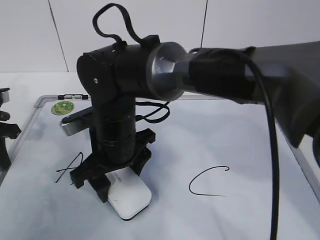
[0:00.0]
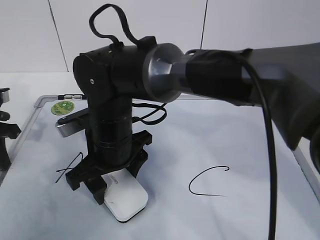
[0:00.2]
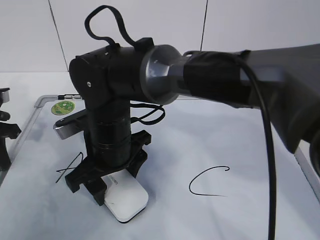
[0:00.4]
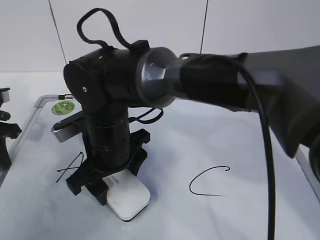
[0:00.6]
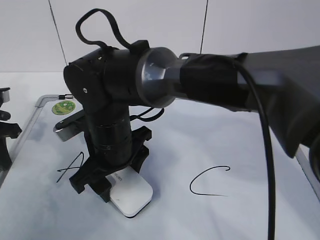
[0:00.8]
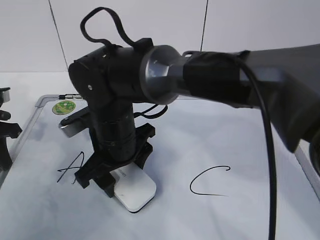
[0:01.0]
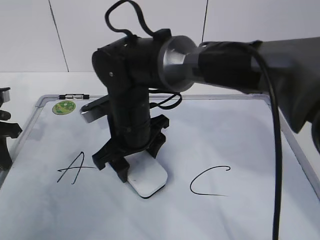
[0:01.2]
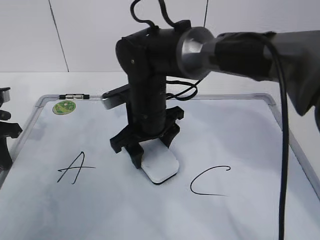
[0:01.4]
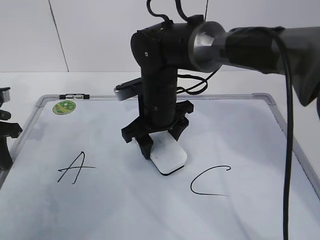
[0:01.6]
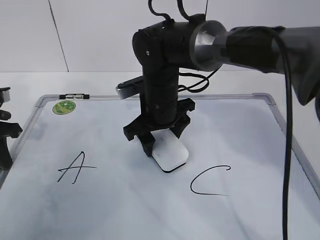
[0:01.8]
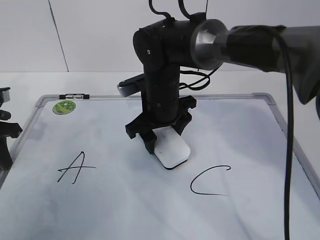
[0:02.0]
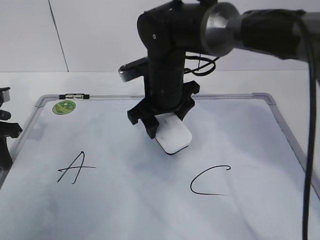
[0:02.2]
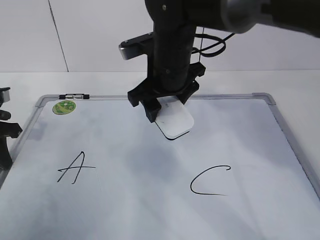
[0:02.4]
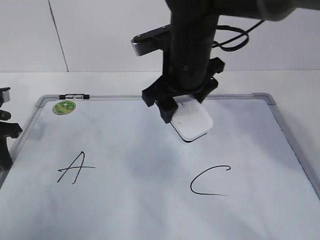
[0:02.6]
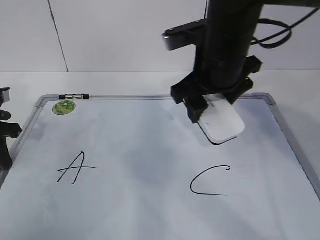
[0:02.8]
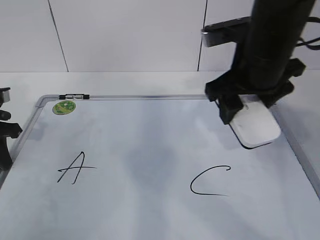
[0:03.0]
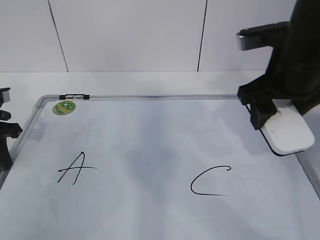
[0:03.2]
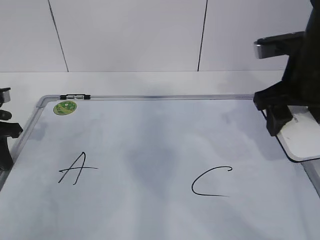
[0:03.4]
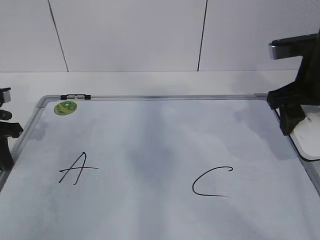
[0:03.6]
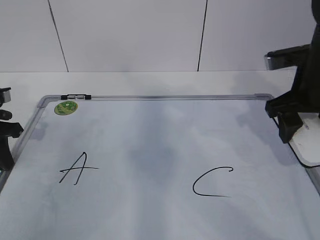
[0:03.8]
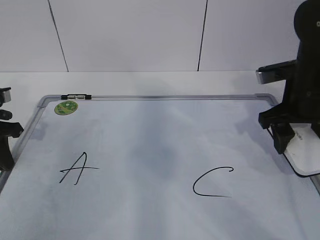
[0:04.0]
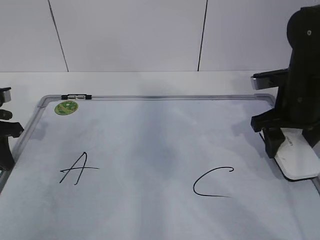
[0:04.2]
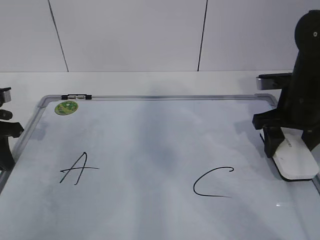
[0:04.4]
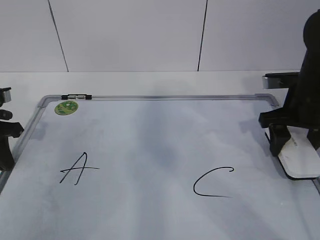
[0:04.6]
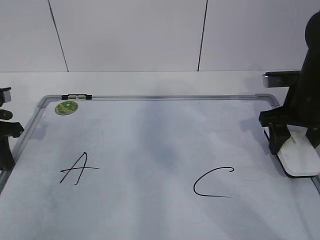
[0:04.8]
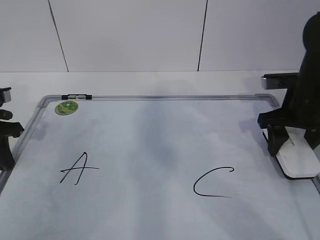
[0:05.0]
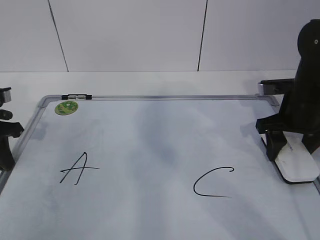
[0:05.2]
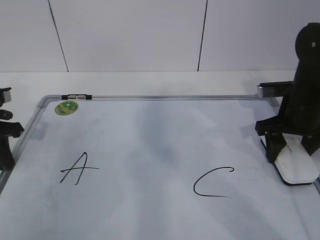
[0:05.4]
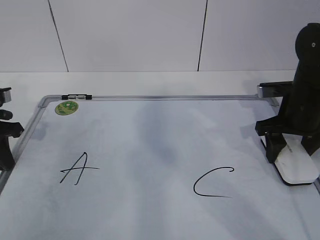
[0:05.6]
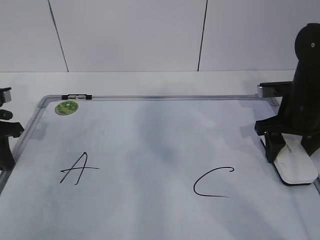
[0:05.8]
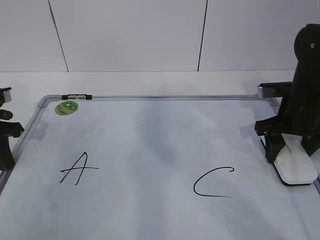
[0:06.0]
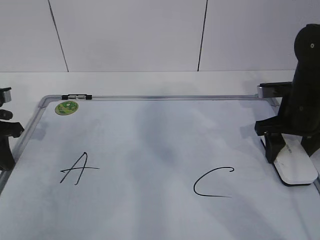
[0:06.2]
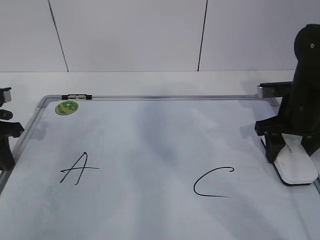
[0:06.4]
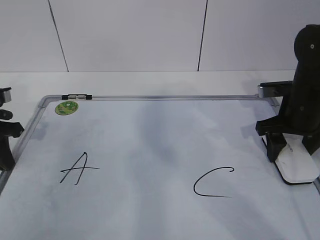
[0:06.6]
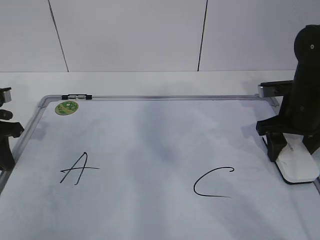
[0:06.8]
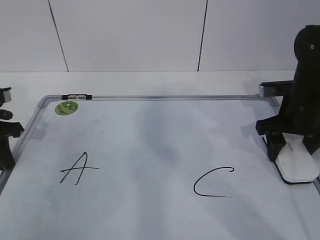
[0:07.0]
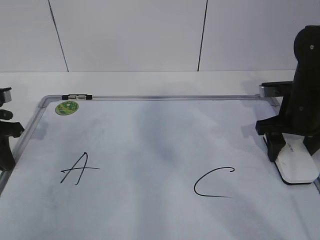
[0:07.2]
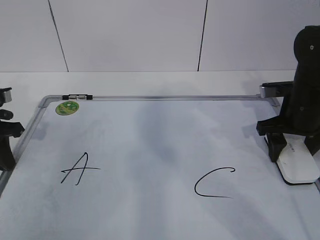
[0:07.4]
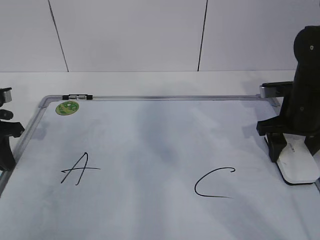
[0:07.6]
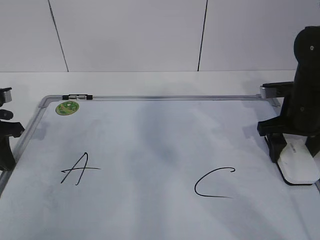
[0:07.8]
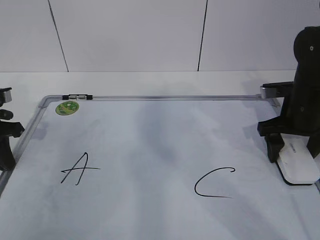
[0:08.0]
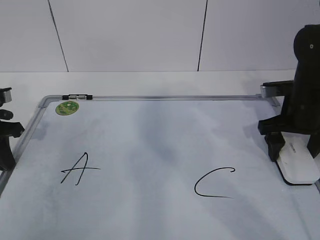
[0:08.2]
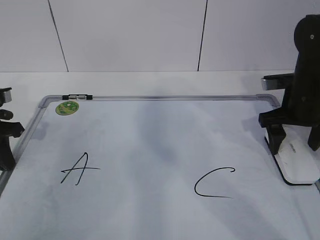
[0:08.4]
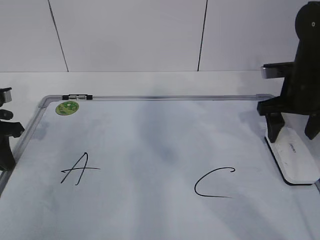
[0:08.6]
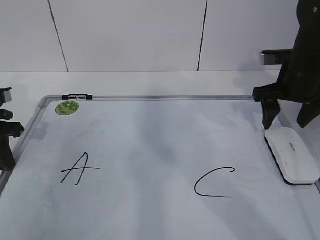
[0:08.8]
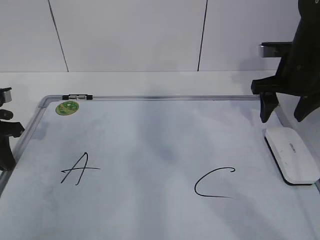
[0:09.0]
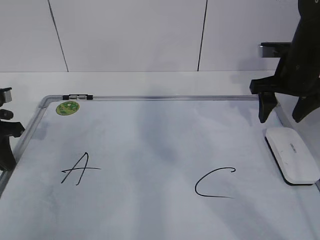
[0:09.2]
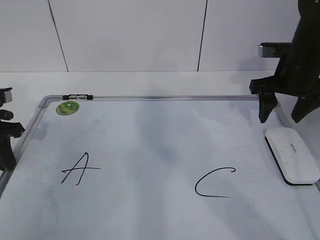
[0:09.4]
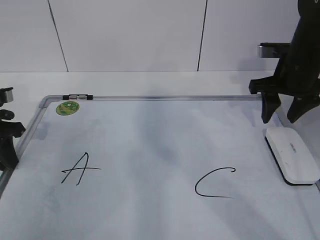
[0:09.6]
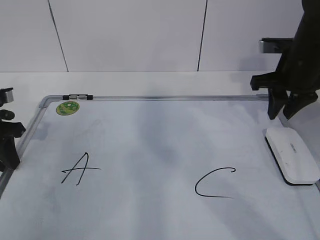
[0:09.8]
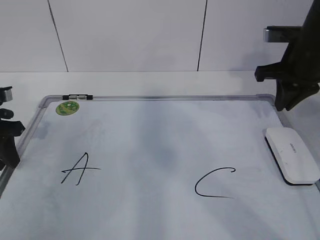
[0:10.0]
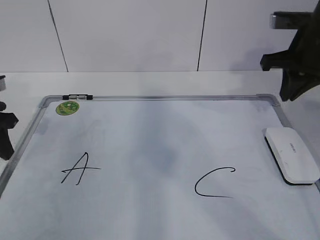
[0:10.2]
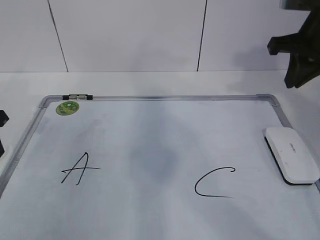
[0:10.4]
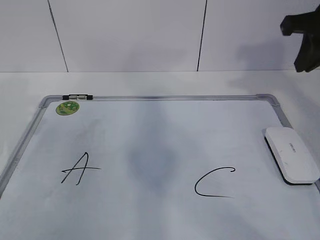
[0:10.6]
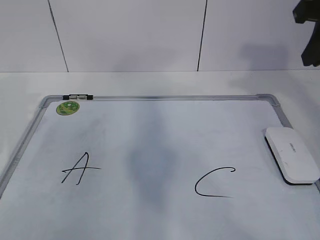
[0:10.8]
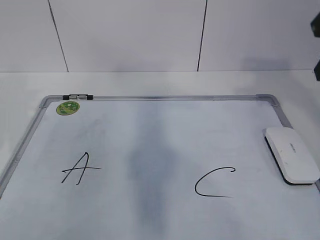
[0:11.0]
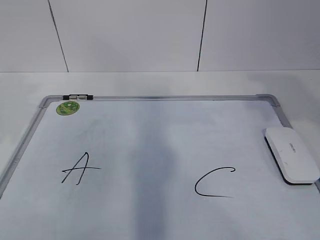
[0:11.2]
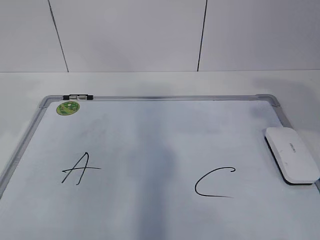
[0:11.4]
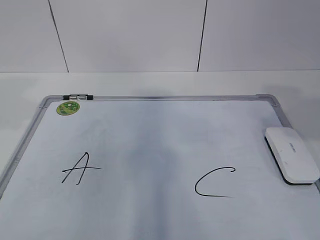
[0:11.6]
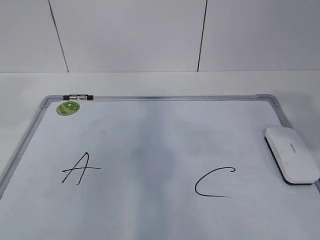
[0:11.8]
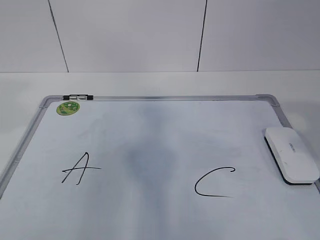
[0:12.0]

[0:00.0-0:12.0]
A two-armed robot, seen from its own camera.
Task of the whole recording: pick up the eraser on the blackboard and erase the letter "B".
Step, 0:00.0 to 0:02.6: Put down the eraser with your right hand.
0:00.0 to 0:01.6: The right gripper moves forward and to the right, some 10 cm.
0:01.6 to 0:03.0: The right gripper is displaced to the right, upward and backward by some 20 cm.
0:03.0 to 0:04.4: The right gripper shifts some 15 cm to the right and downward.
0:04.4 to 0:06.0: The grippers stay close to where they were, moving slightly.
0:06.0 to 0:07.6: The two grippers keep their place.
0:07.6 to 0:09.0: The right gripper moves upward, some 5 cm.
0:09.0 to 0:10.4: The left gripper opens its fingers. The right gripper goes about 10 cm upward, and closes.
0:10.4 to 0:12.0: The left gripper travels upward and backward by approximately 25 cm. The right gripper heads backward, covering some 25 cm, and opens up.

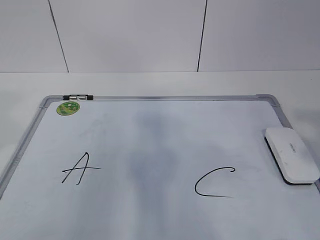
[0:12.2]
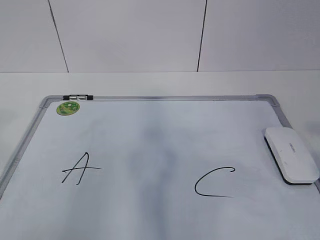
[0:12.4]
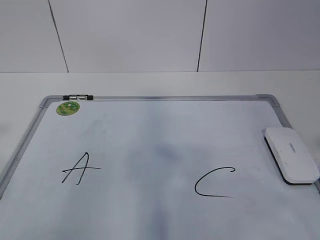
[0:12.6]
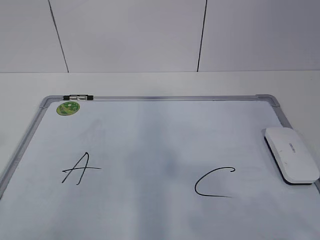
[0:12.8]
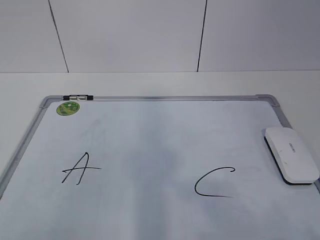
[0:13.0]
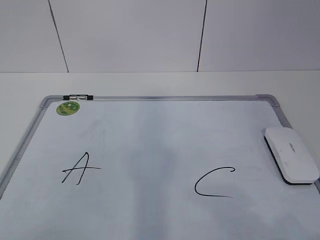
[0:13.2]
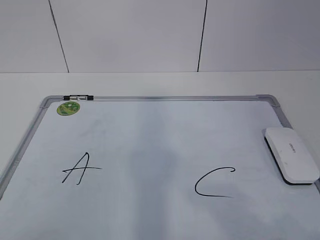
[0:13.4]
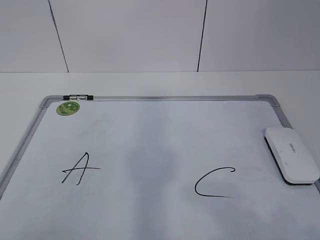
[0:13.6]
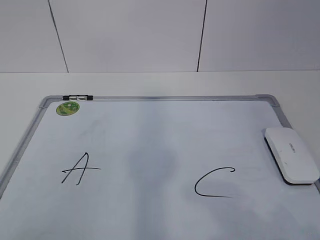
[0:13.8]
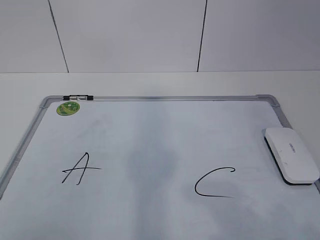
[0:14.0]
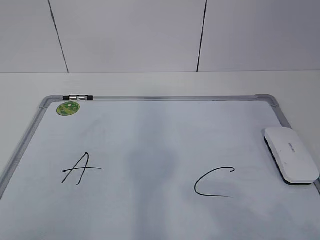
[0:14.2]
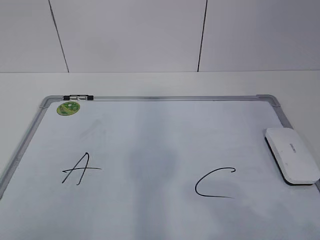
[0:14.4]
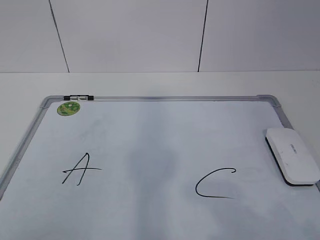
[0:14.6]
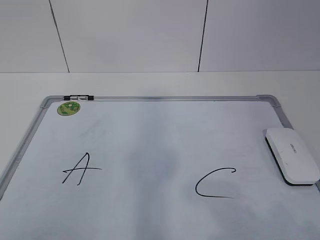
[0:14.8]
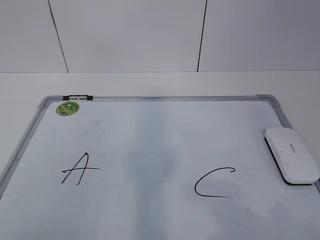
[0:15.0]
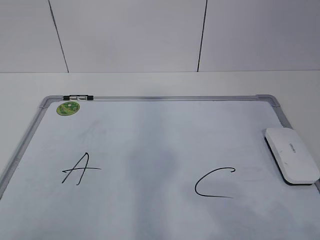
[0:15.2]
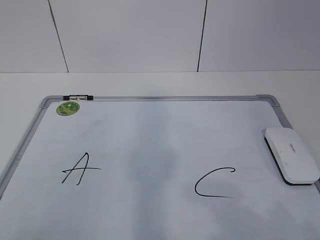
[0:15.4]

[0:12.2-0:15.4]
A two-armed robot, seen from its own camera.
Task of the whole recording: pick up the eraser on the blackboard and erase the letter "B".
0:12.2 to 0:13.8: The right gripper travels downward and backward by about 15 cm.
0:13.8 to 0:15.4: The two grippers keep their place.

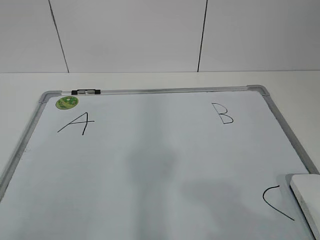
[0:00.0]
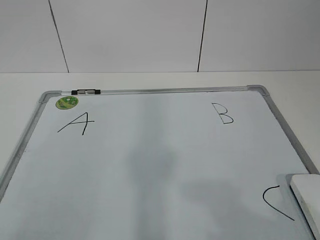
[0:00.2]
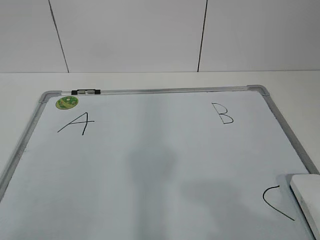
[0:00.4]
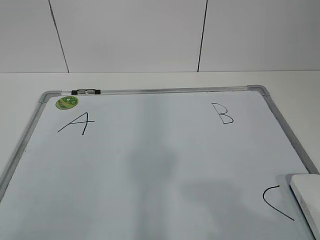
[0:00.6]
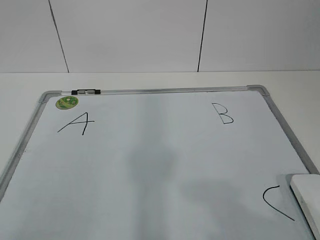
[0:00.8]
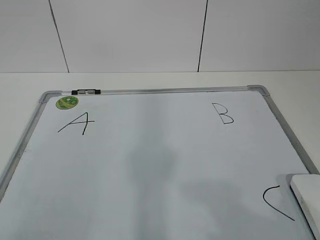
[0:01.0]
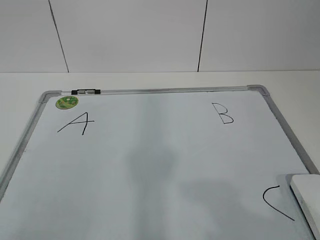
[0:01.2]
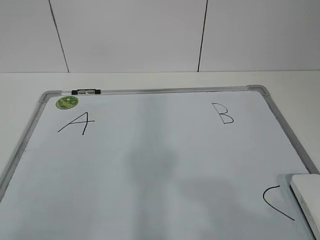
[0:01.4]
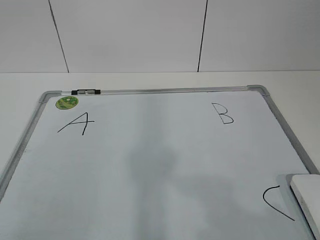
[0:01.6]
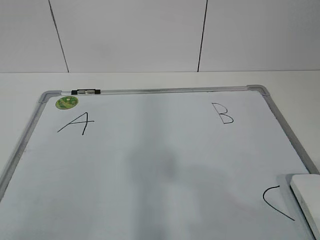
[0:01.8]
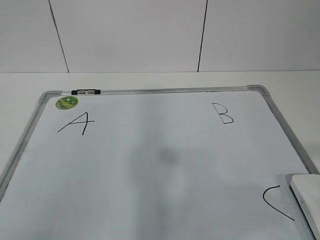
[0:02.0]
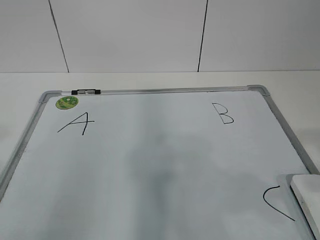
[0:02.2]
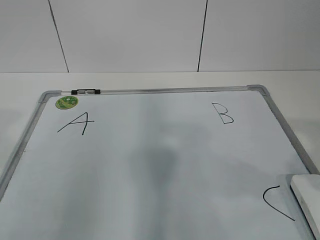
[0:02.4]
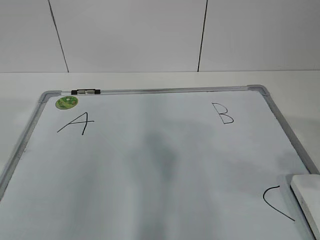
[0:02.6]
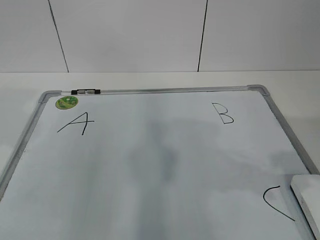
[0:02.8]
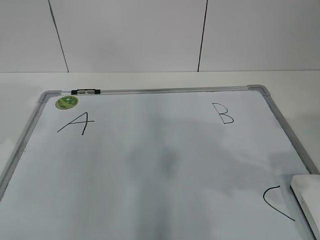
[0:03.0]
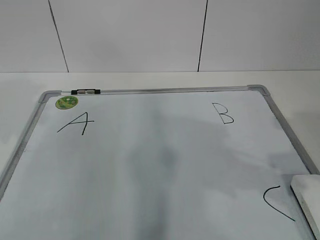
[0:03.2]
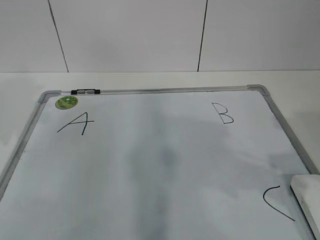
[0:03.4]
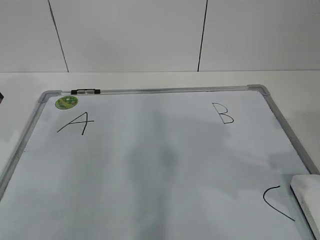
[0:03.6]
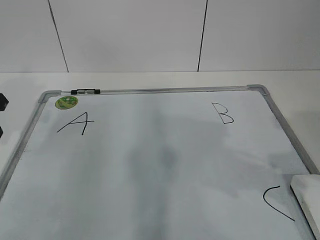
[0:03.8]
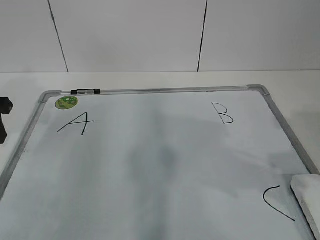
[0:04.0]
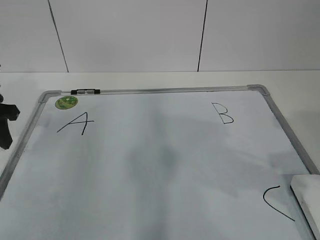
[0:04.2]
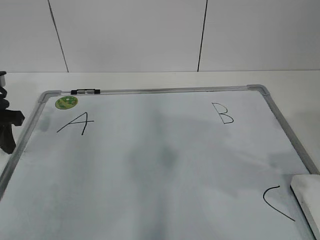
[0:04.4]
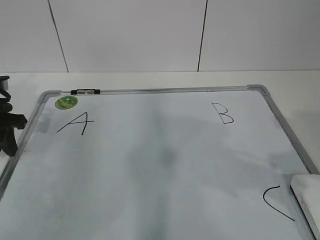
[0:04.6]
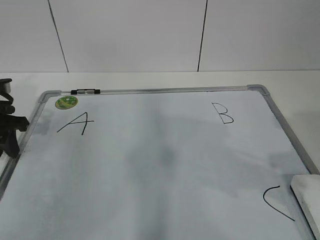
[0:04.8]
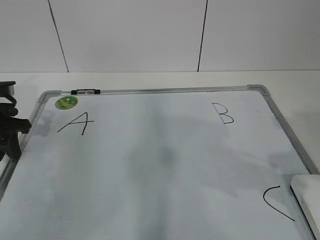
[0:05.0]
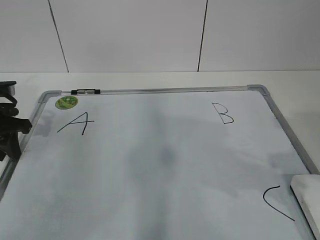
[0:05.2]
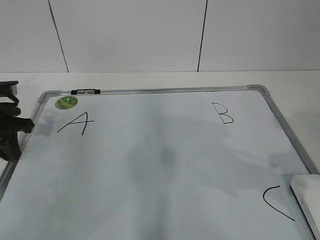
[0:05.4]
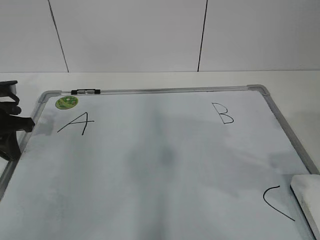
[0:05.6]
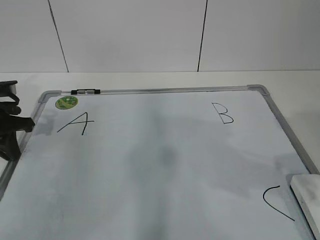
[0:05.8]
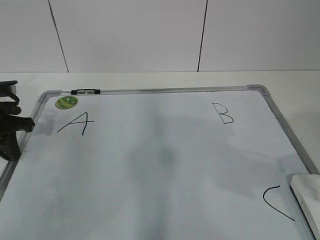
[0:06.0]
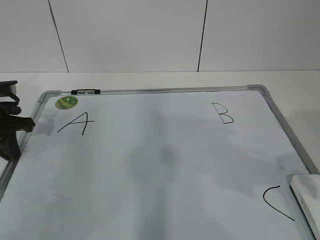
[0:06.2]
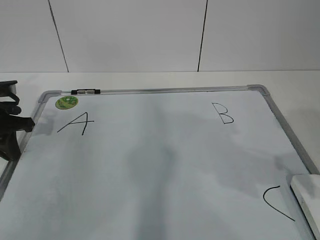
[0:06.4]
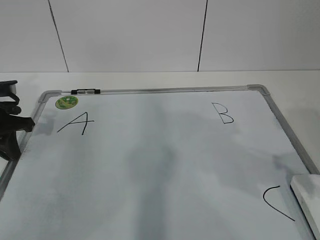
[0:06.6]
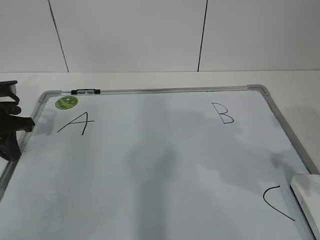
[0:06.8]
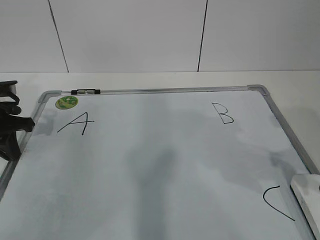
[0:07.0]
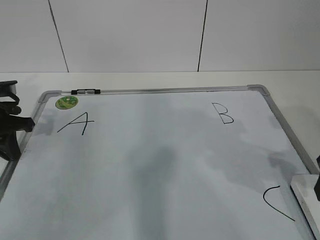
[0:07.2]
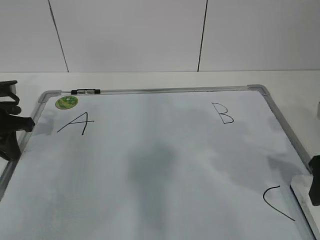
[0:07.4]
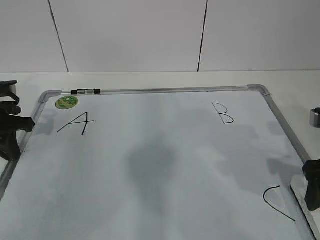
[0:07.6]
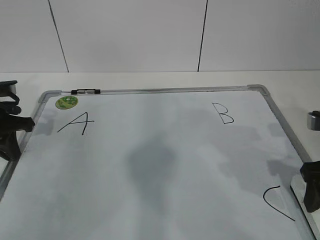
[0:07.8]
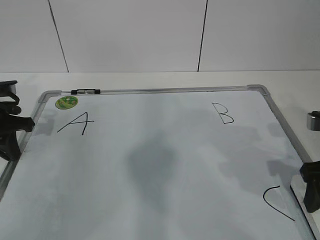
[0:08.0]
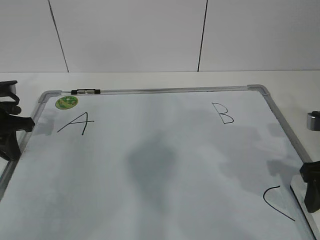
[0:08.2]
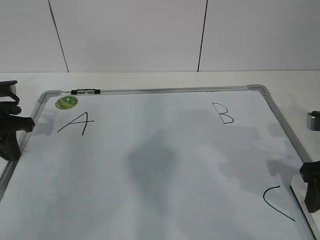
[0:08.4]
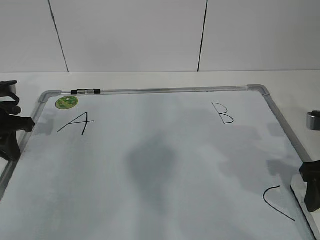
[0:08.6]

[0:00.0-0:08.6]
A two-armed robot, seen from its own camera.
Task of the whole recording: pick up the eraser on the blackboard and erase the letter "B".
0:01.4 to 0:02.8: The left gripper travels forward by approximately 20 cm.
0:02.8 to 0:04.4: The left gripper travels forward and downward by about 20 cm.
0:04.4 to 0:05.8: The left gripper closes its fingers.
0:07.2 to 0:08.6: The grippers stay close to where they were, moving slightly.
